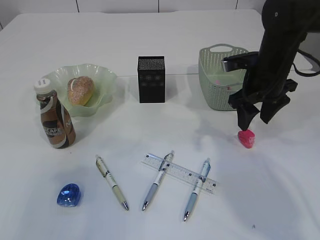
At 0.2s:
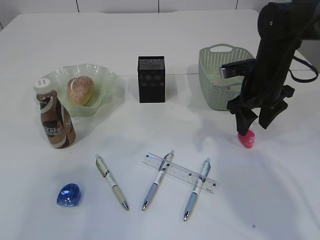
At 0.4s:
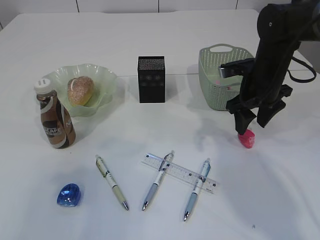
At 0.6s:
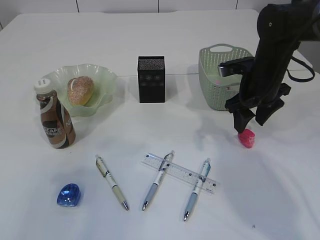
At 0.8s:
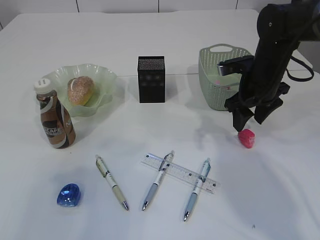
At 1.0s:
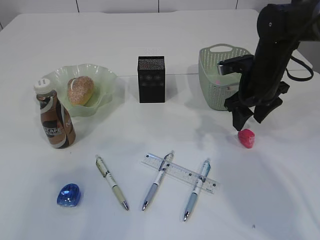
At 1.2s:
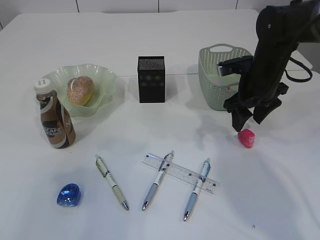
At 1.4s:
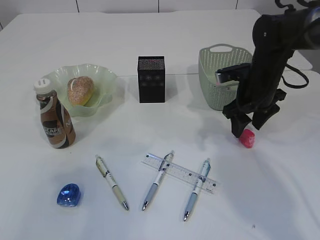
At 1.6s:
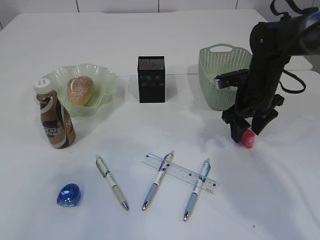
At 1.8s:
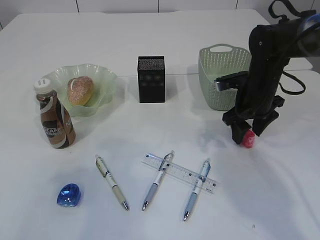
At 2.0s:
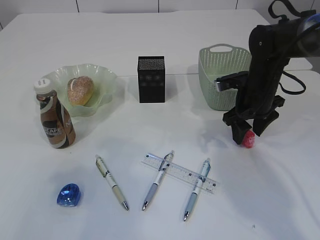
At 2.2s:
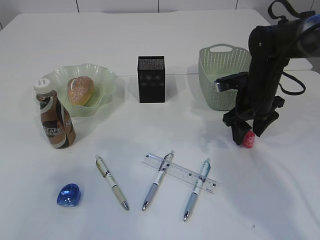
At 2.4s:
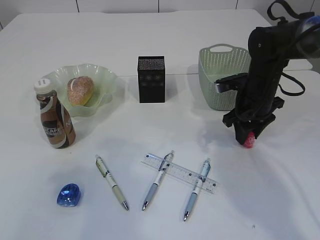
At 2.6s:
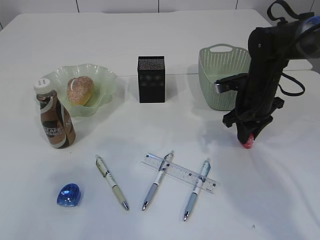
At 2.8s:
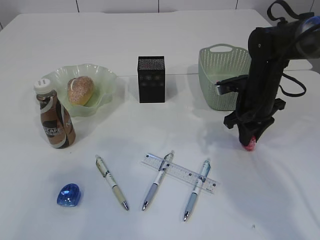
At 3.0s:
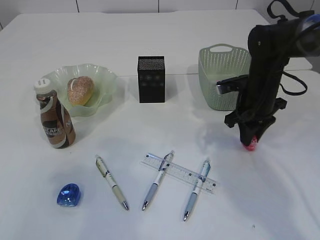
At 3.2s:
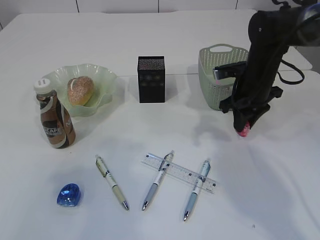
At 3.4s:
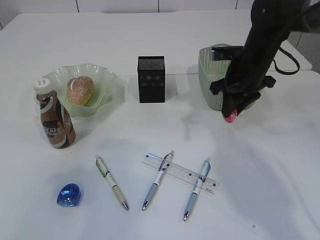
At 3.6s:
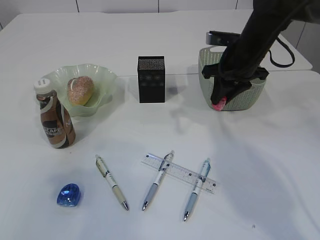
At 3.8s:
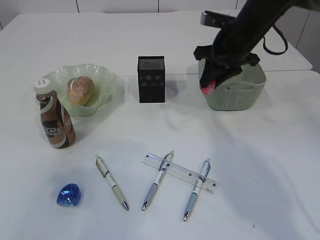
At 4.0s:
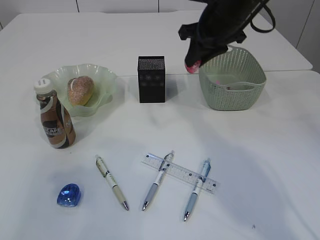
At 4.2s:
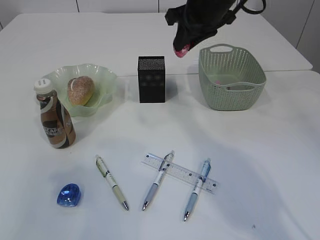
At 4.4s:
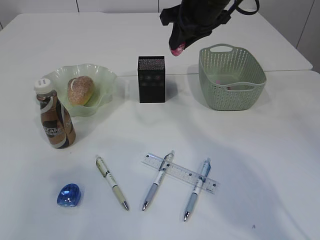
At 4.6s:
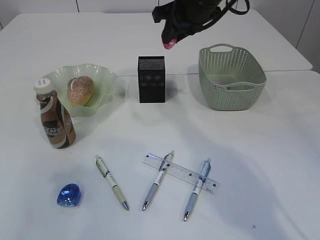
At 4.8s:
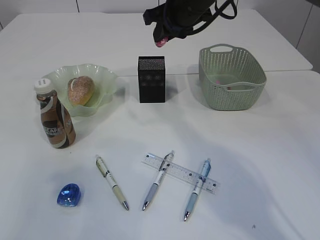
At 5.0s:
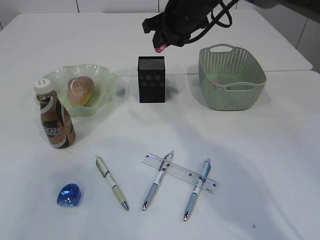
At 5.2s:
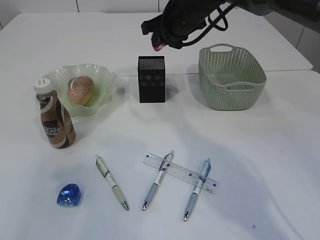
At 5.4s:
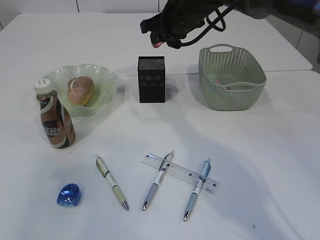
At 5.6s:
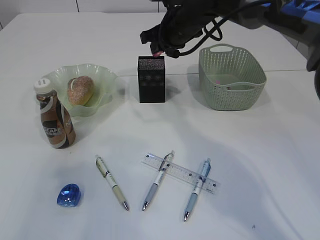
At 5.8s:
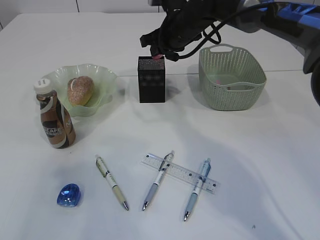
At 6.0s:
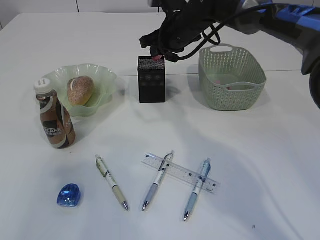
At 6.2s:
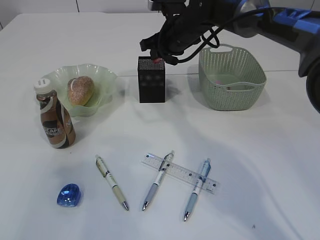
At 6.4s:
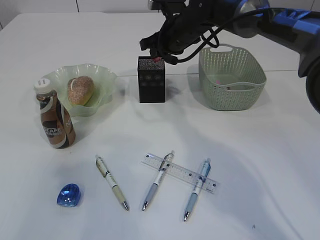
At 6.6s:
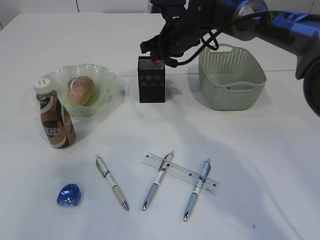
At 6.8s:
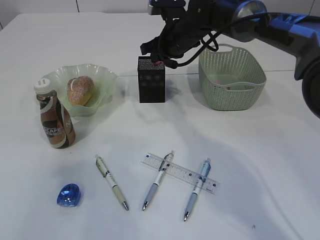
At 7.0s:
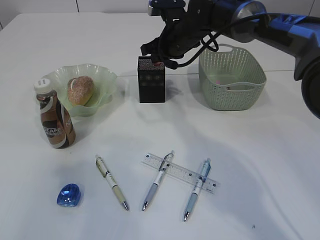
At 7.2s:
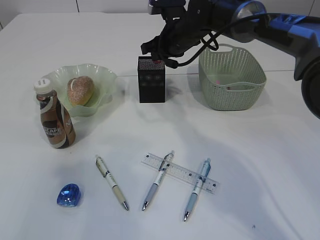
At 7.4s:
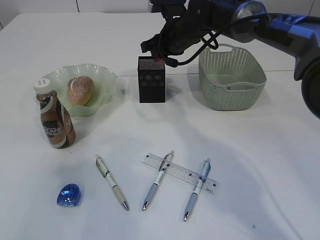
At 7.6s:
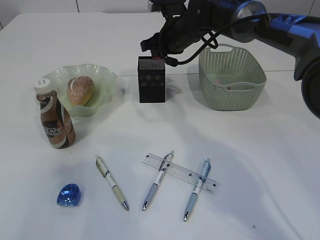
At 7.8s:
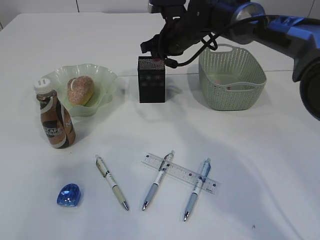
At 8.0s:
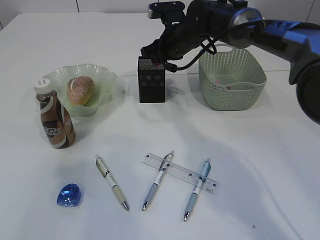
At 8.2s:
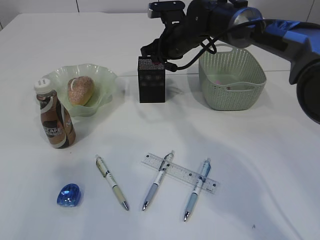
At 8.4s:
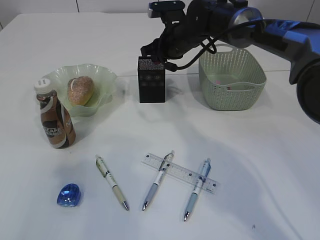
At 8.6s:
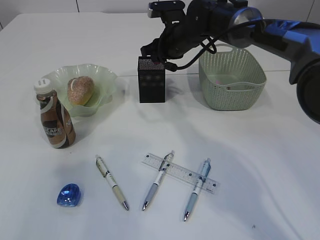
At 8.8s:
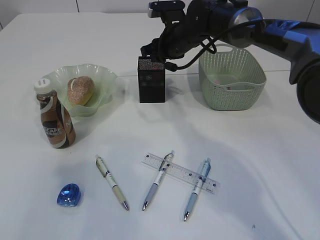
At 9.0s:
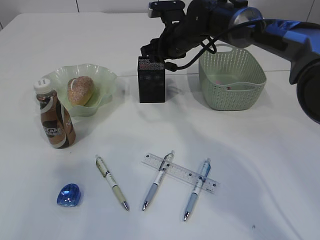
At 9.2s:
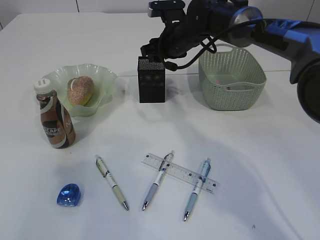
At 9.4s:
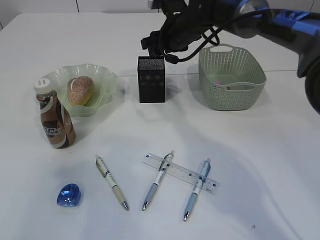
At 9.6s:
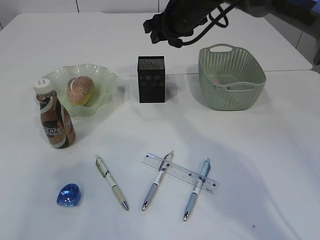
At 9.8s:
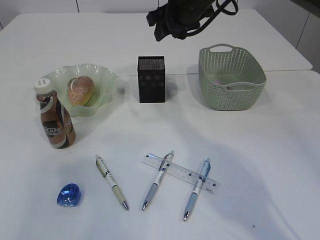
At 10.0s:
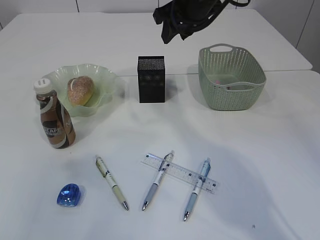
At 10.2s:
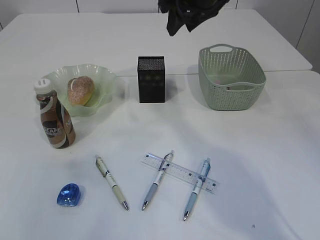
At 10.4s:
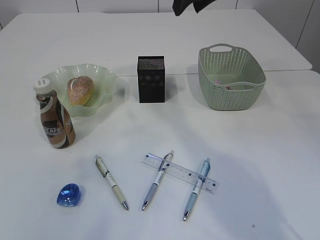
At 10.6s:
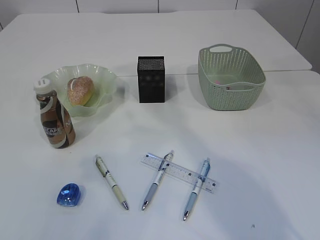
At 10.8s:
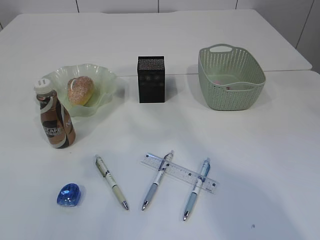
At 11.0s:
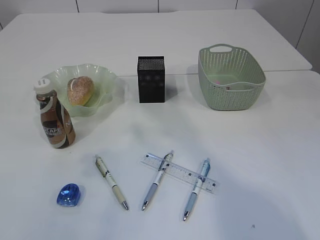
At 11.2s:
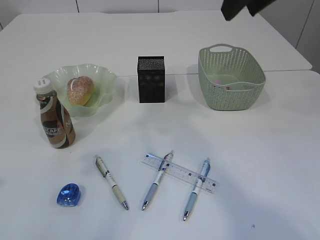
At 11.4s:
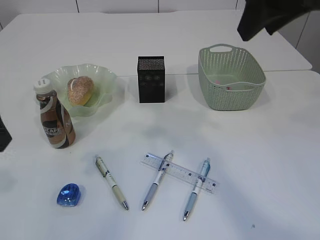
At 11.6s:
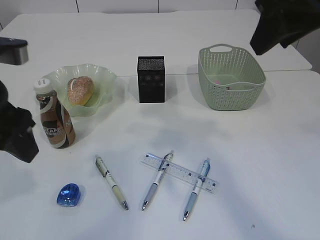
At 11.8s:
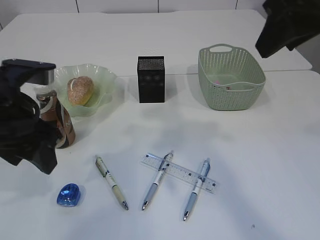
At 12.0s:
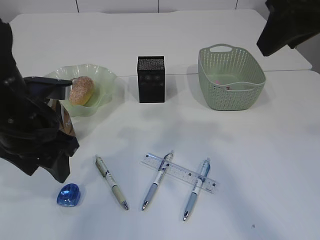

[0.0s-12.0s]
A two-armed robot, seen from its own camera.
Step, 0.0s to 3.4s: Pick up the red pencil sharpener.
Step, 3.6s to 9.4s: Place the red pencil sharpener into the pen holder.
0.0s to 1.6s: The right gripper shifts by approximately 5 cm.
1.6s to 3.0s: The right gripper closes its fingers.
3.0s to 4.4s: The right gripper is displaced upward and to the left by about 20 cm.
4.4s to 6.0s: The right gripper travels downward and forward by approximately 10 cm.
6.0s to 7.6s: The grippers stay close to where they were, moving slightly.
7.6s to 9.0s: The right gripper opens up.
9.0s to 10.4s: The right gripper travels upward and backward by about 20 cm.
10.4s to 12.0s: The left gripper moves downward, forward and to the right, some 20 cm; the right gripper goes roughly 20 cm backward.

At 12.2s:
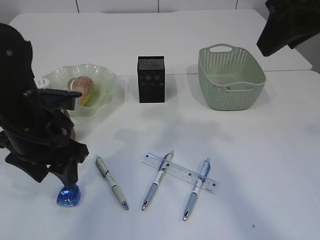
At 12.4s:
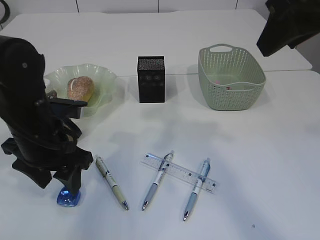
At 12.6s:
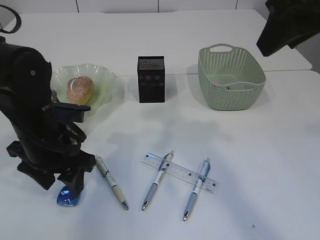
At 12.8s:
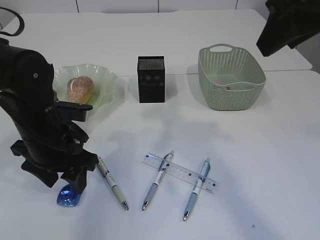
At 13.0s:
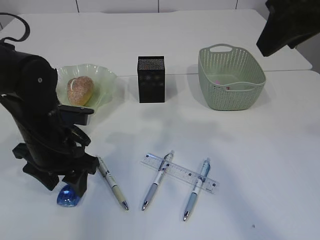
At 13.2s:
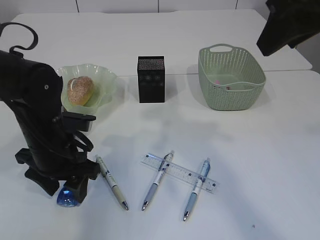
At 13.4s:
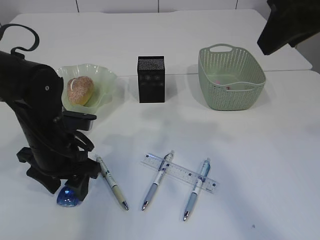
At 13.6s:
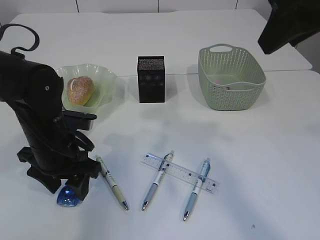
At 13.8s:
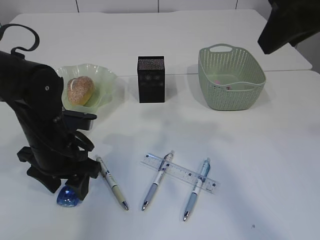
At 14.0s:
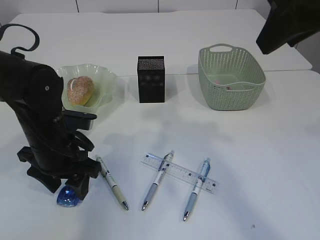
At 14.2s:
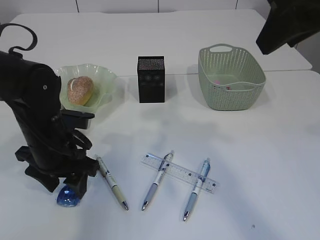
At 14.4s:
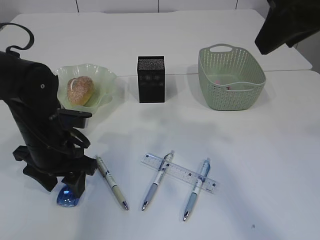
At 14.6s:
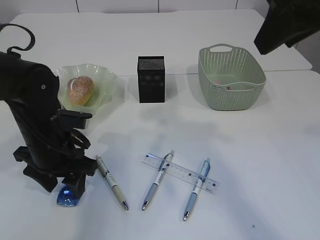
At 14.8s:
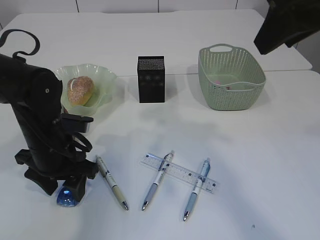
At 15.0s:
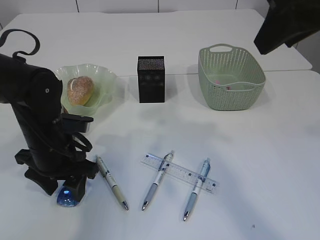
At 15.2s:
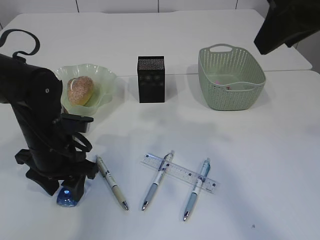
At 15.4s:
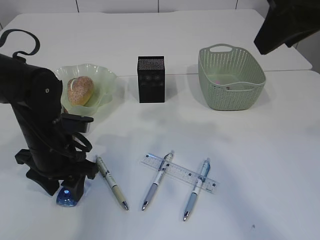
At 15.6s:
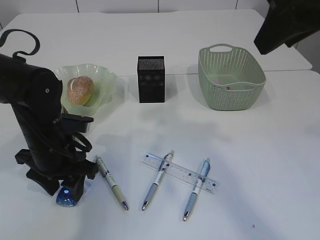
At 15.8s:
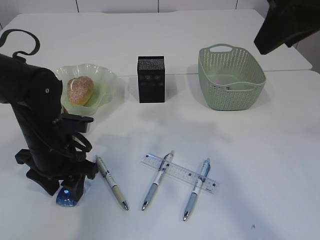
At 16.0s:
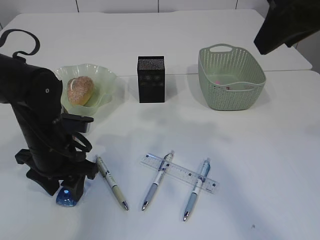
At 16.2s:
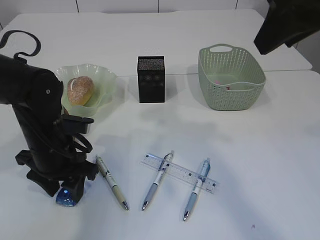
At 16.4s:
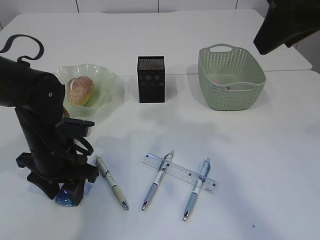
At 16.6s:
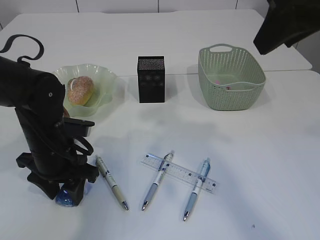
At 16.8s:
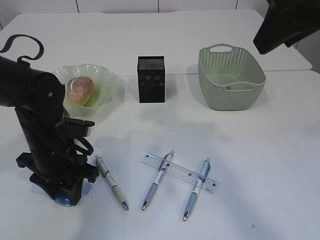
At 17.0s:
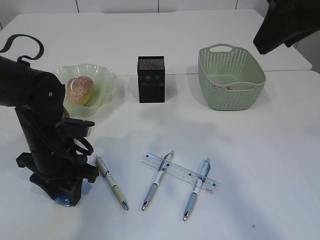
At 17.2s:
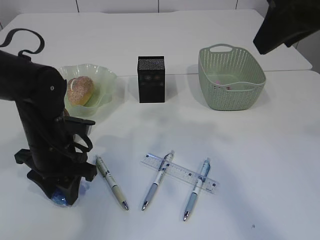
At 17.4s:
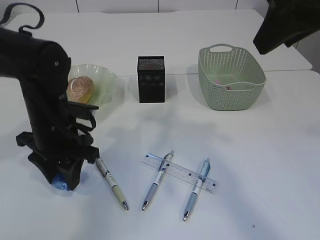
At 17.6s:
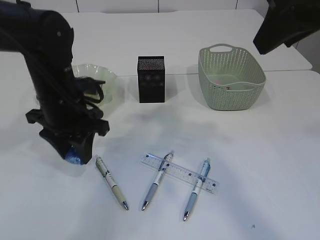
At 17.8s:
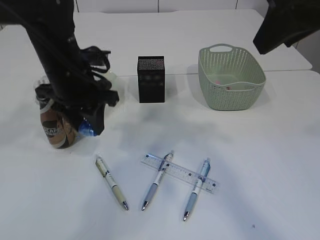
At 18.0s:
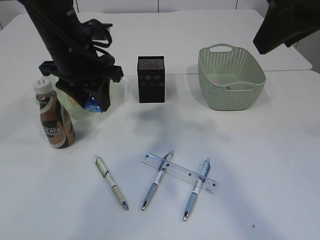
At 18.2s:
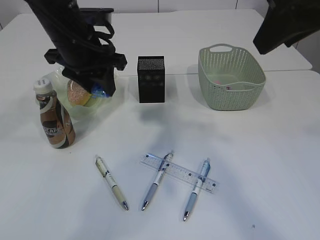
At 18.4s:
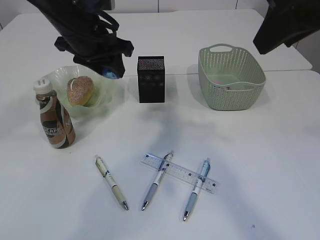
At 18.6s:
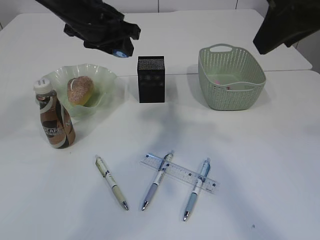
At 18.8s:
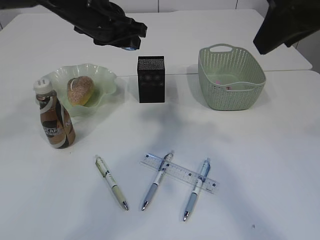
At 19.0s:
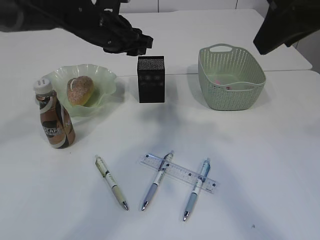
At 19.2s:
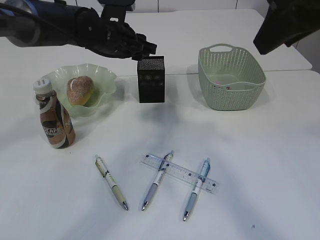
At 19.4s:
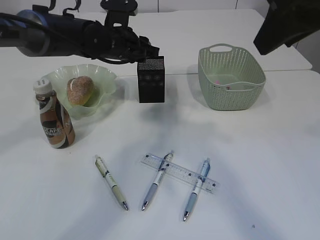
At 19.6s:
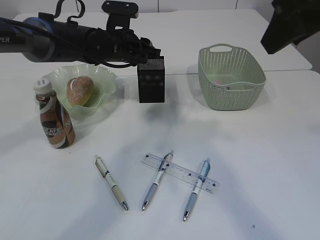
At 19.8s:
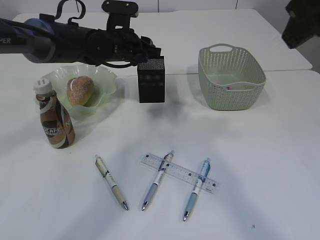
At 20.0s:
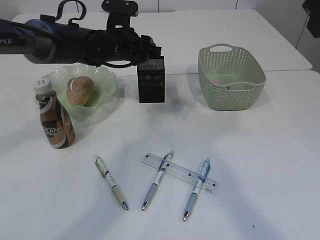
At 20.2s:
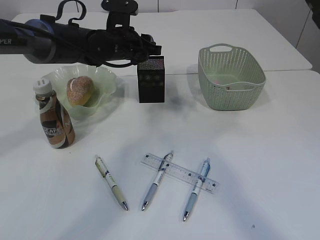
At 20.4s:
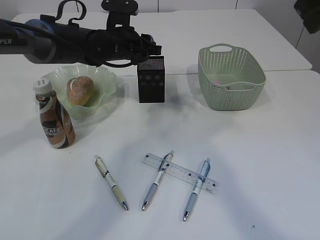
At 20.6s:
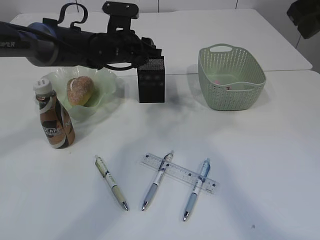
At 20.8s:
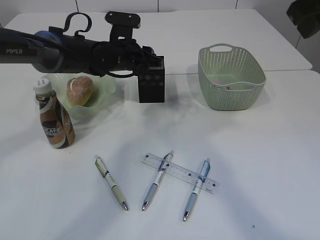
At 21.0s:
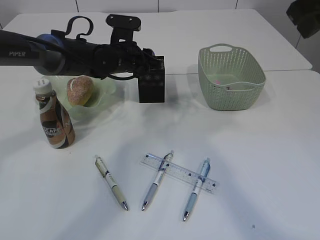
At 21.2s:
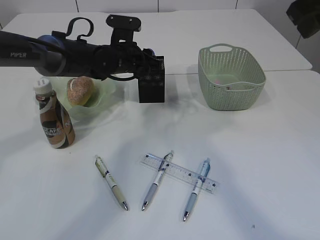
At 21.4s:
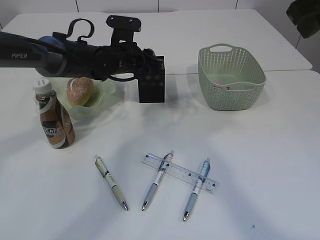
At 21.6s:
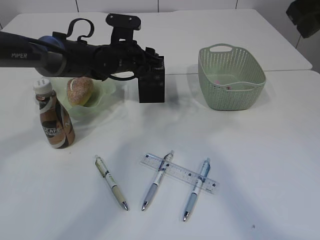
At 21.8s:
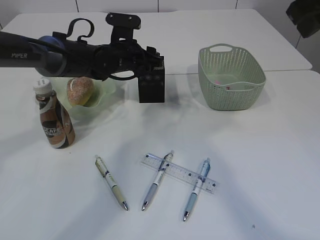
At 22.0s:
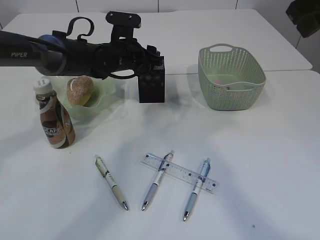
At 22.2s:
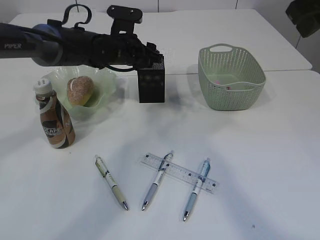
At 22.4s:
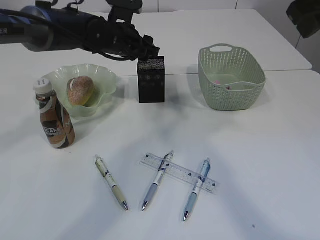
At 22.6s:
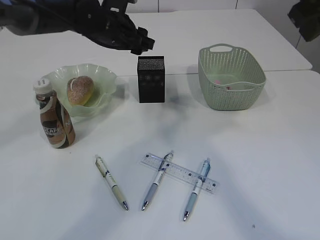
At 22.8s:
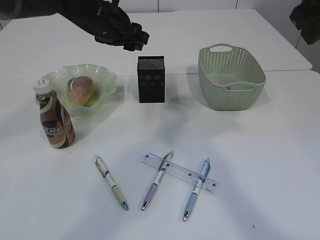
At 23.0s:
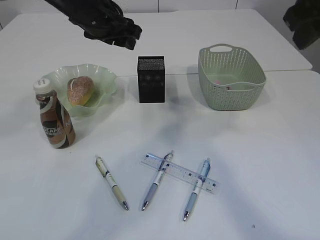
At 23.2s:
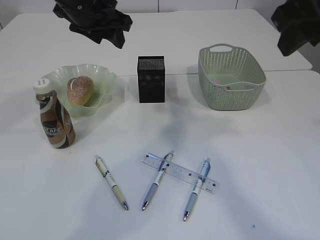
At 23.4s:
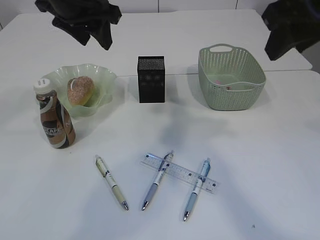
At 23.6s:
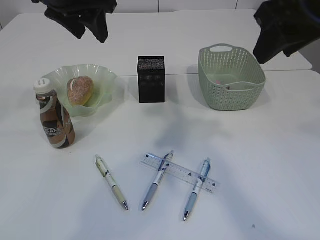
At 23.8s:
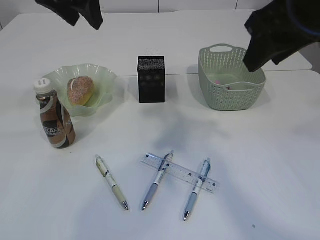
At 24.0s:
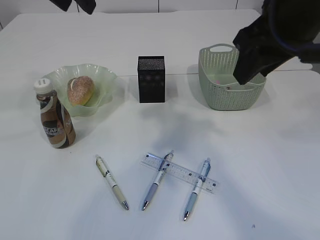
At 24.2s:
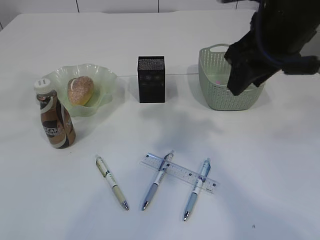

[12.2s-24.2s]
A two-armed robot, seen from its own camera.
Step, 12.2s to 17.6s: Pick up the blue pencil sharpener.
Step, 17.8s to 22.6s: Place the blue pencil sharpener into the pen holder.
12.2s to 13.8s: The left gripper shifts some 5 cm downward.
13.8s to 15.2s: Both grippers stay about where they are.
15.2s to 16.6s: Both grippers stay about where they are.
16.6s to 18.2s: The left gripper shifts about 15 cm upward and forward.
18.2s to 19.8s: The left gripper travels forward and downward by about 10 cm.
21.2s to 22.6s: The left gripper heads upward, covering about 5 cm.
22.6s to 24.2s: The left gripper travels upward and backward by approximately 25 cm. Meanwhile the right gripper heads downward and to the left, covering approximately 5 cm.
